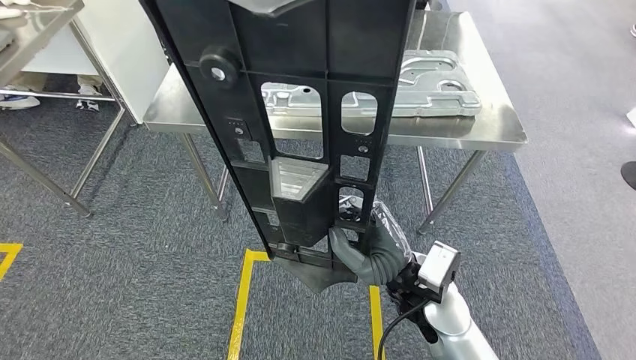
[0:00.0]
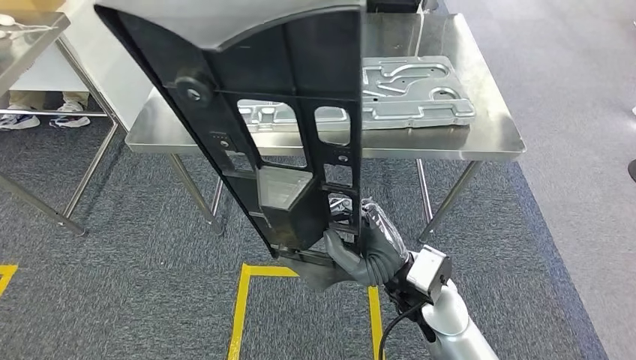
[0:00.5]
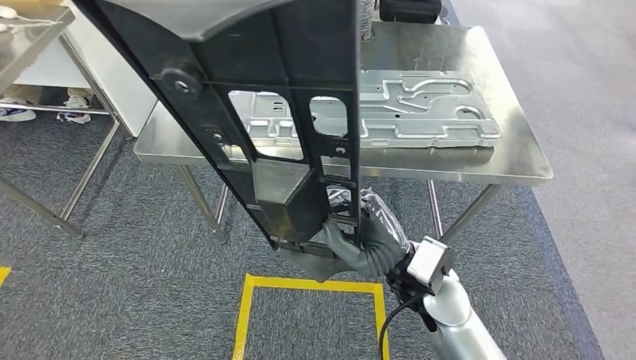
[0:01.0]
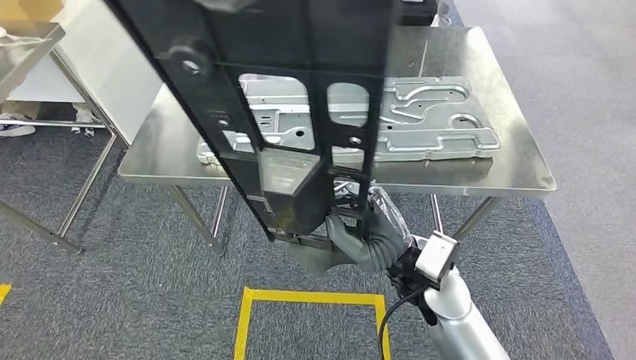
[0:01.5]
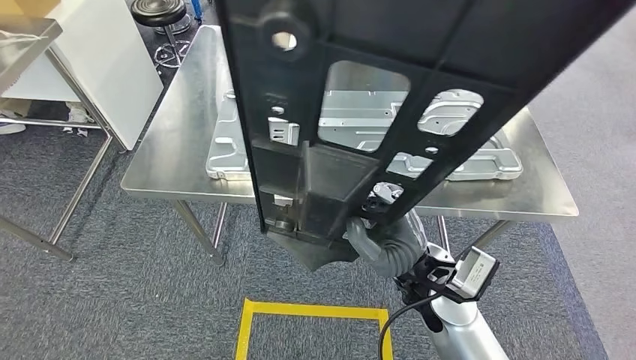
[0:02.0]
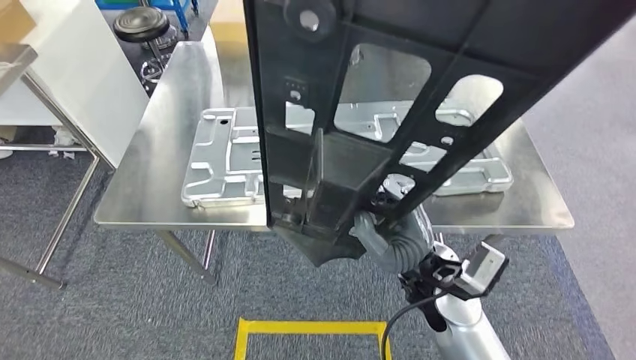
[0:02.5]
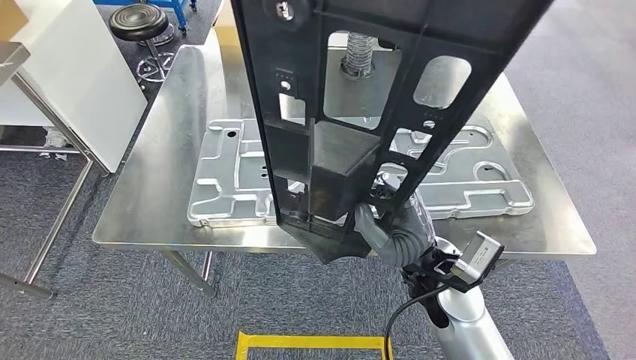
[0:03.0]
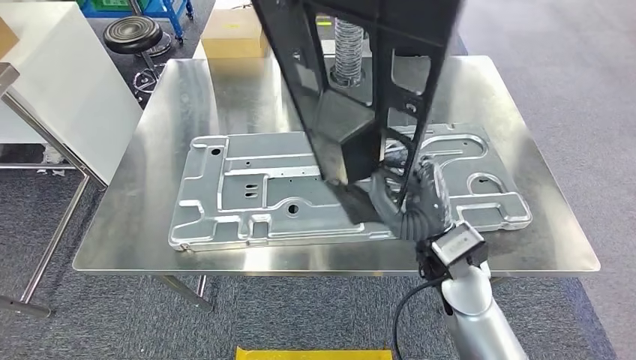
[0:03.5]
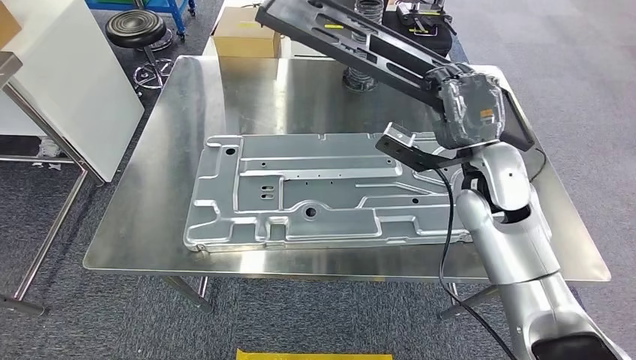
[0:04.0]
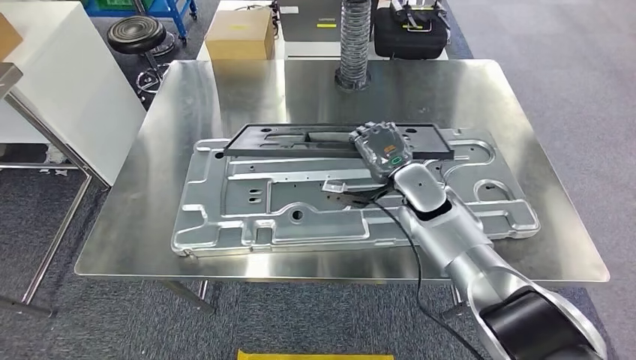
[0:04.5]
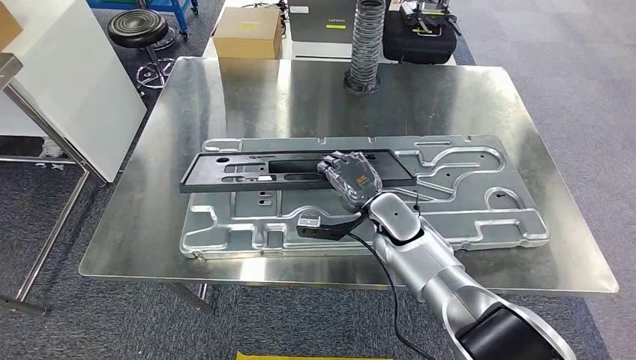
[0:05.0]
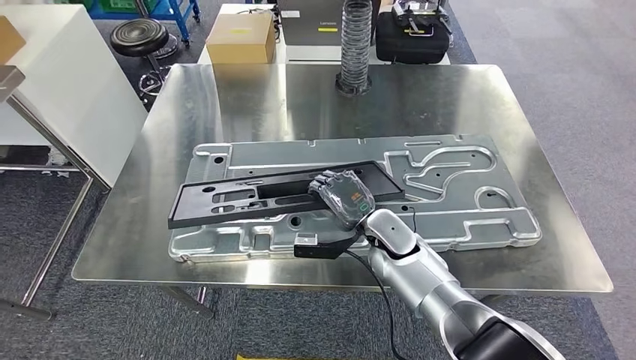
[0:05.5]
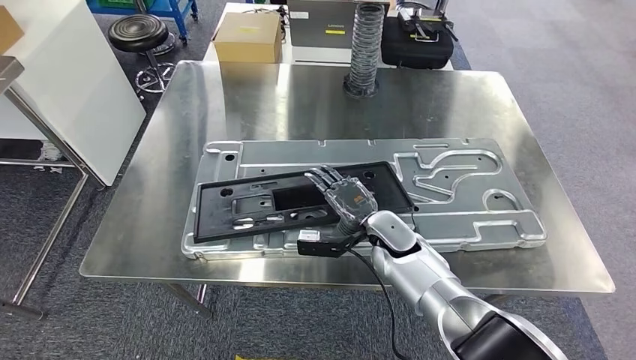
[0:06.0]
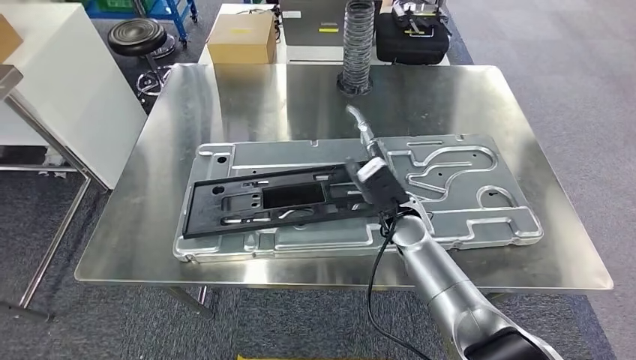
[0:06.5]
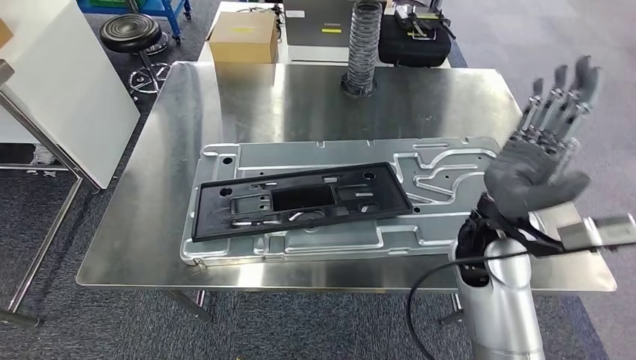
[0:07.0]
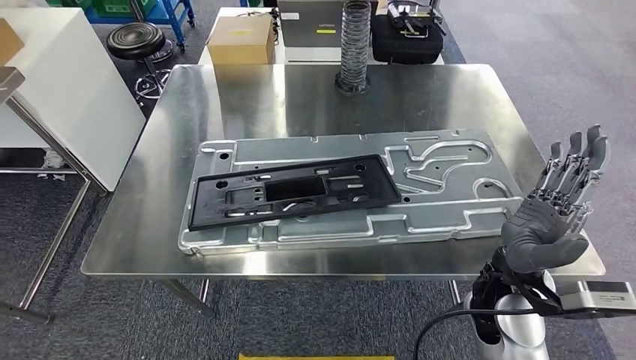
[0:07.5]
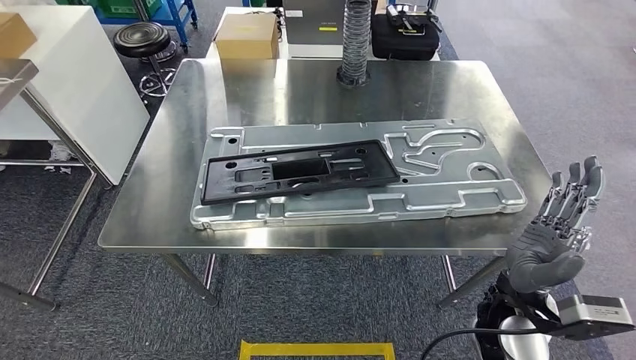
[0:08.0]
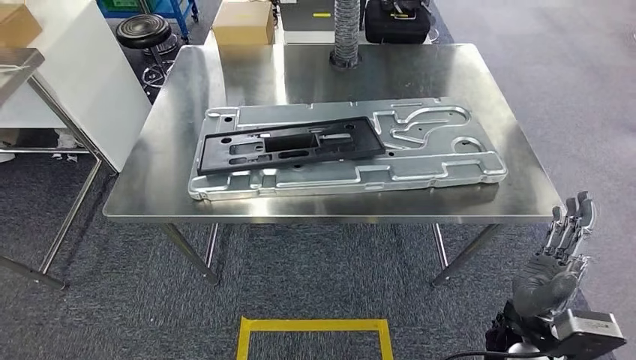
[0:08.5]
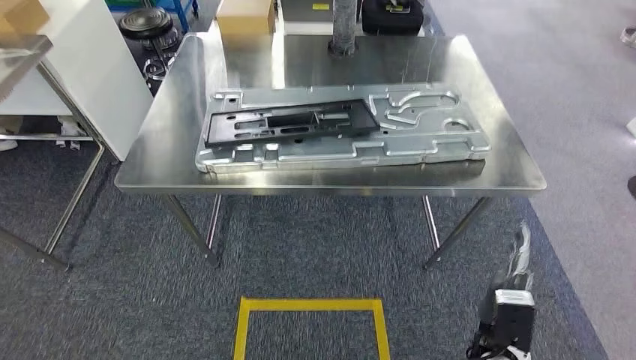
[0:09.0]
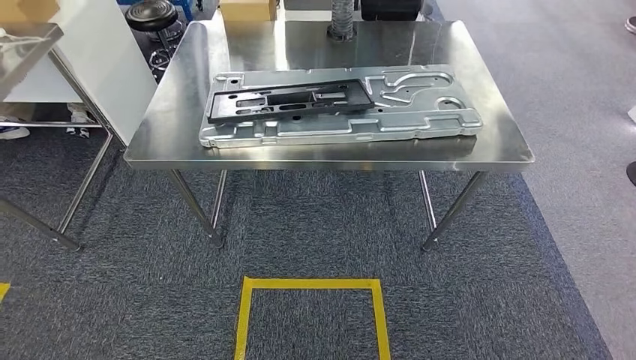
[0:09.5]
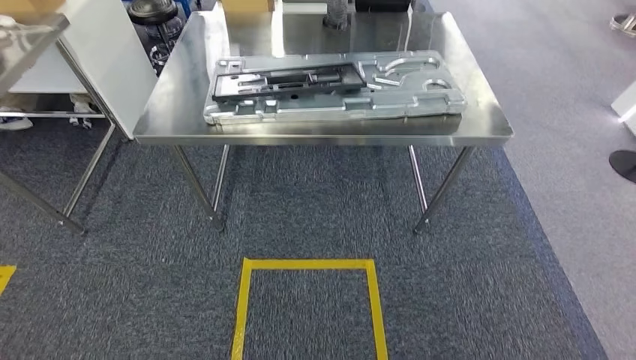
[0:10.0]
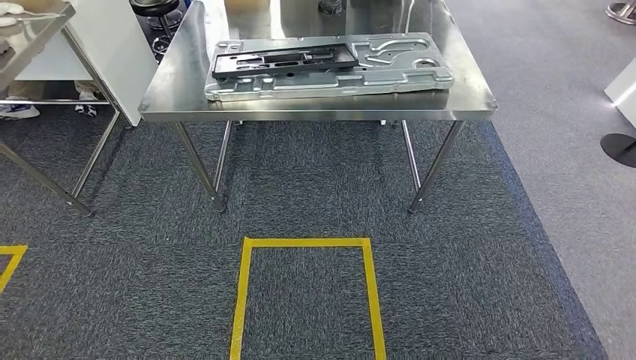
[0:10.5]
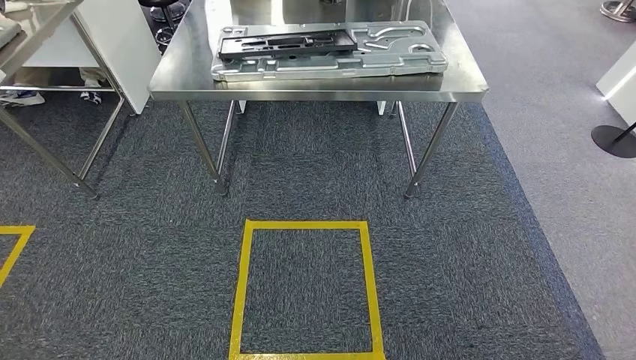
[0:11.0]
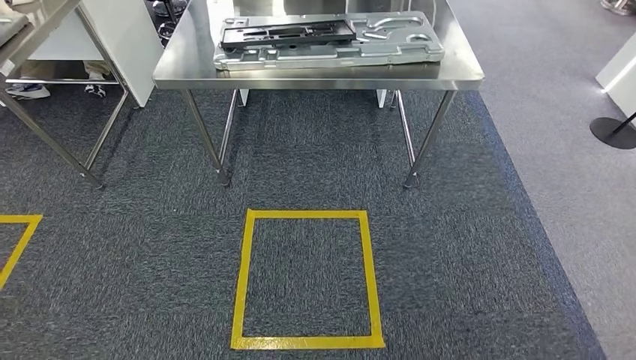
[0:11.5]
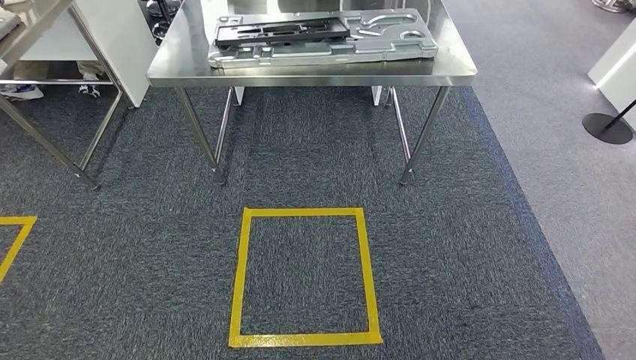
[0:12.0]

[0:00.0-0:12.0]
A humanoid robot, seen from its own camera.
Step, 0:01.5 to 0:08.0: Insert the small parts into the corresponding holes on the workbench.
Step, 0:08.5 to 0:12.0: Move to the initial position at the workbench.
